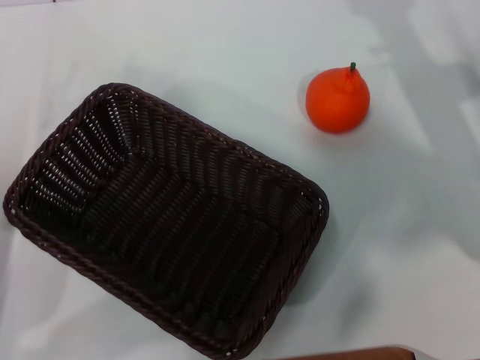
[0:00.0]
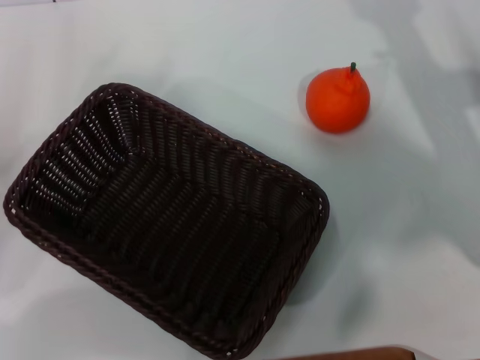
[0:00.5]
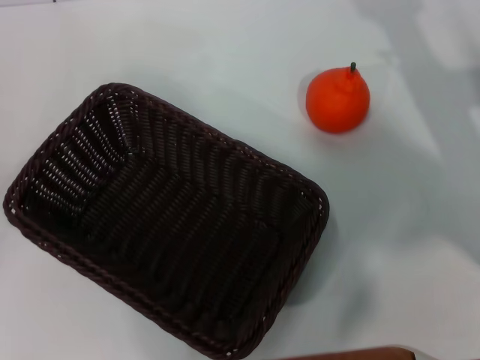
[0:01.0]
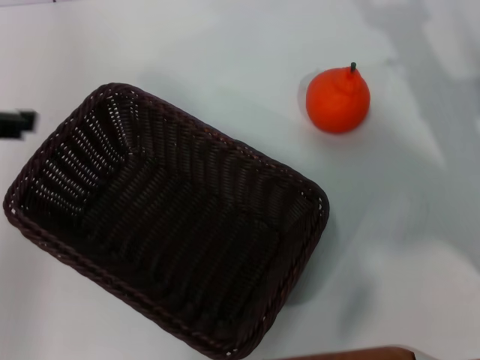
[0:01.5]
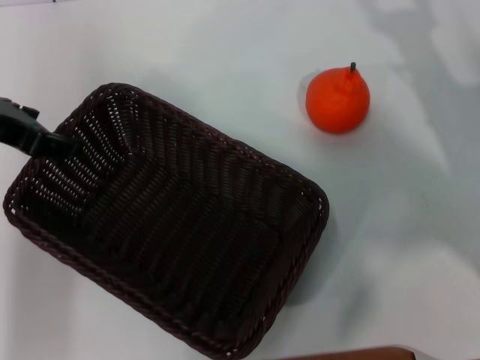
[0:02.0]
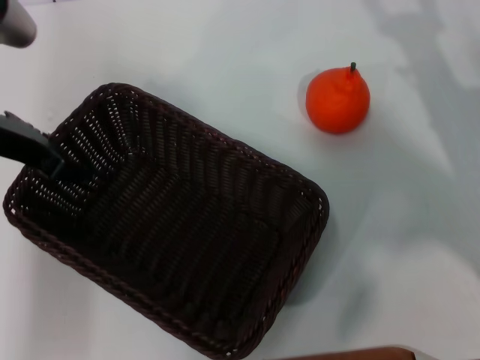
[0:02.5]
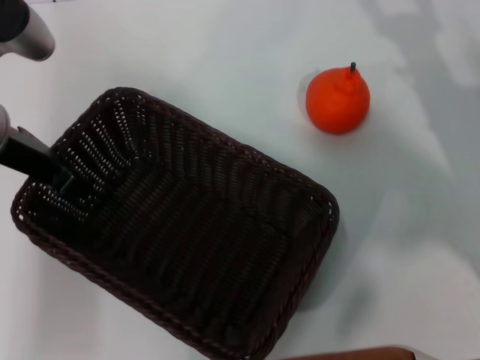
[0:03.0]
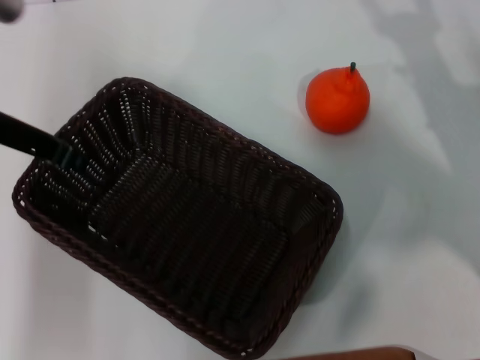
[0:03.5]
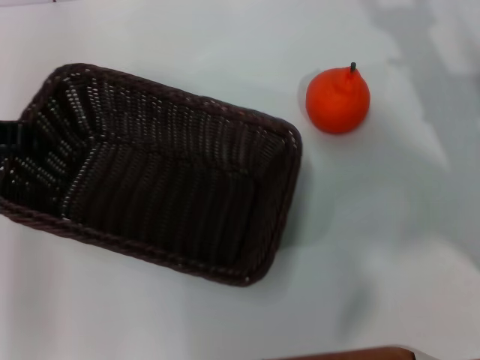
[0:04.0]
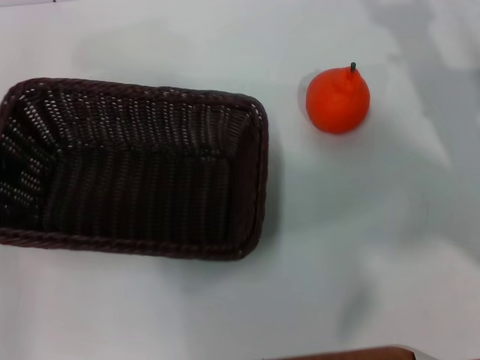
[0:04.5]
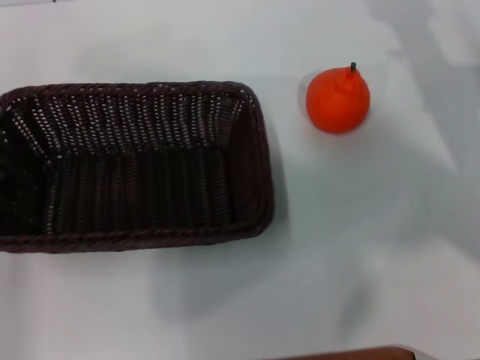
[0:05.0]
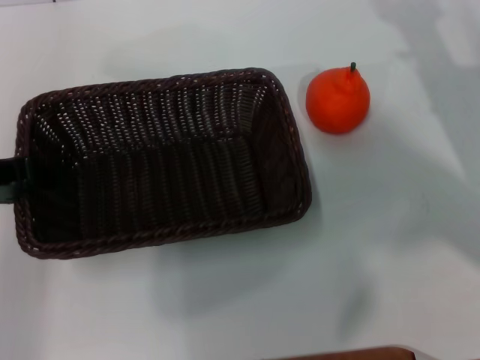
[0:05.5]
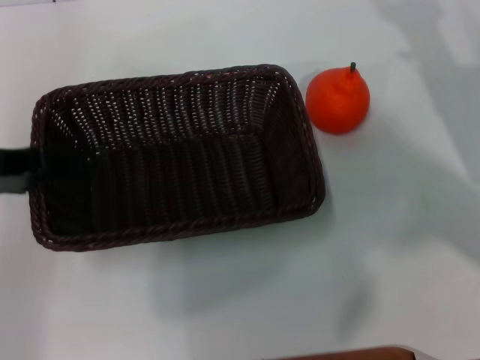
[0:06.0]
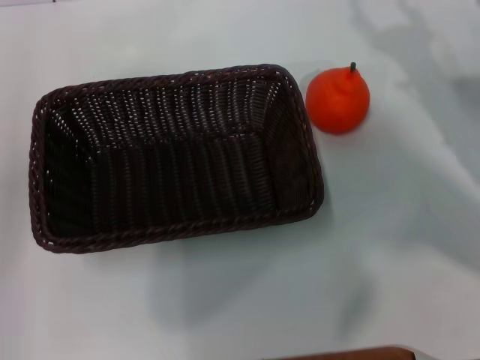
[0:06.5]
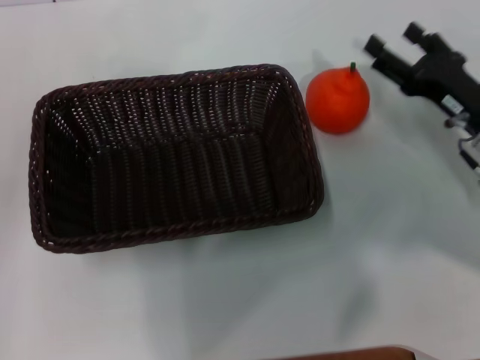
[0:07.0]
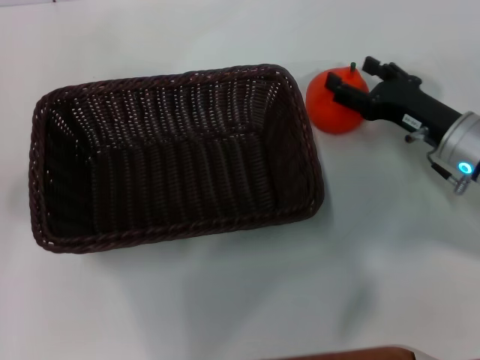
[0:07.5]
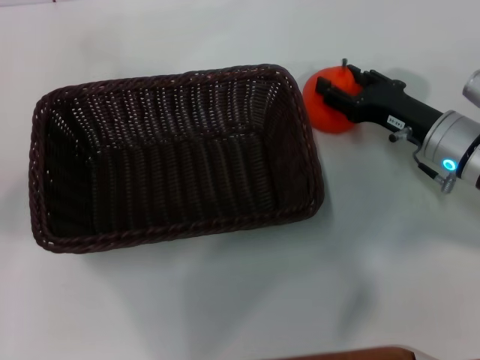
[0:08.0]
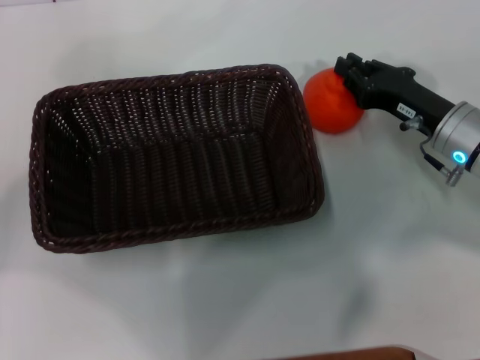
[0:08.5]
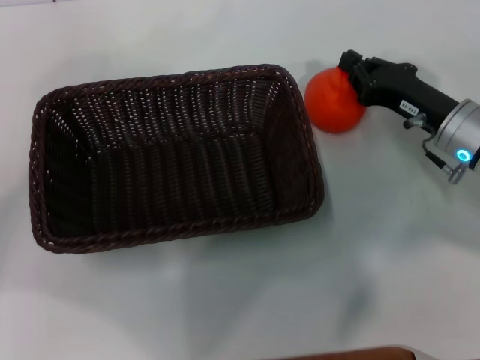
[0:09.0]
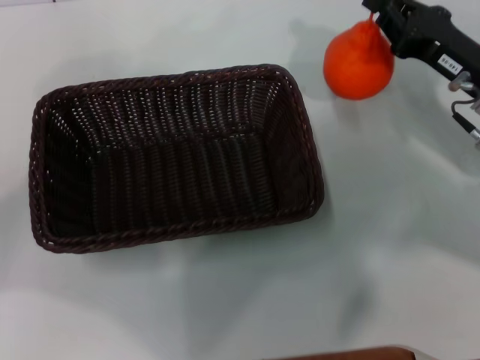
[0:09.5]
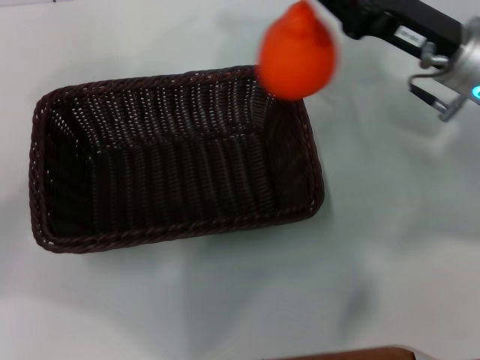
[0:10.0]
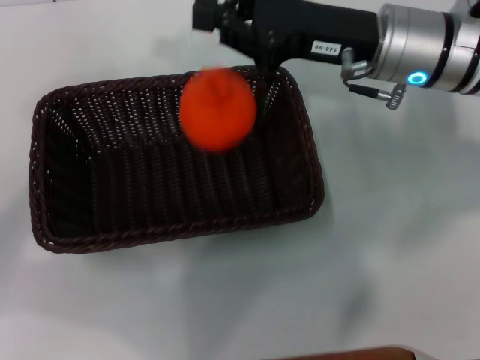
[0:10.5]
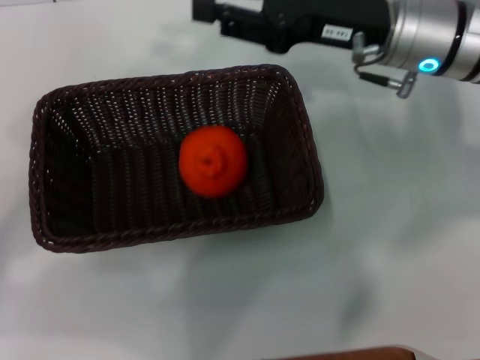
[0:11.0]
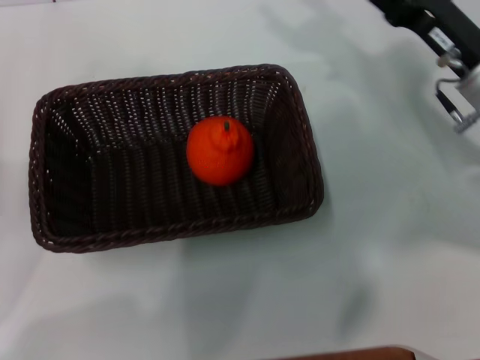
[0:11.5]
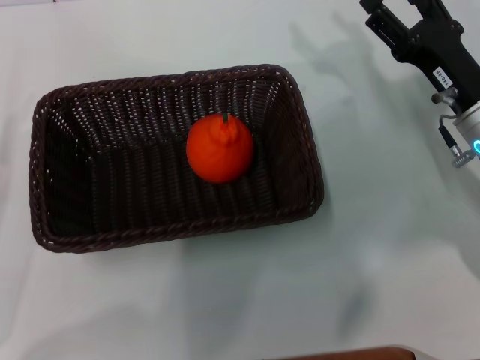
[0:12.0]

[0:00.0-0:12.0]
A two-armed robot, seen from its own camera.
Task of the whole recording: the left gripper pick up the black basket and place it horizontally in the middle of the table, the right gripper pick up the orange and place it into the black basket.
Step, 0:00.0 to 0:03.5: Pick up the dark basket with the left gripper.
Step, 0:04.0 to 0:06.0: Place the dark basket in the center of view with the left gripper.
Step, 0:06.5 to 0:09.0: Pick up the orange with the right gripper.
Step, 0:09.5 to 0:10.5: Place the orange into the dark basket with the right gripper.
0:00.0 to 0:02.0: The left gripper goes some 20 cm upward and forward.
0:02.0 to 0:04.0: The left gripper closes its fingers.
0:04.0 to 0:06.0: The left gripper opens its fingers.
0:06.0 to 0:08.0: The left gripper heads to the left, covering roughly 5 cm. Meanwhile the right gripper heads downward and to the left, covering about 10 cm.
0:08.0 to 0:10.0: The left gripper moves roughly 5 cm. The right gripper is displaced upward by some 10 cm, and closes up.
0:10.0 to 0:12.0: The right gripper moves downward, roughly 5 cm, and opens up; the left gripper is displaced downward and backward by roughly 15 cm.
